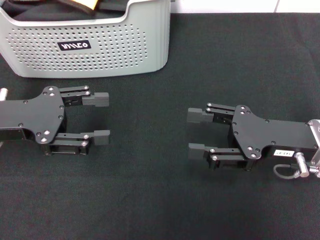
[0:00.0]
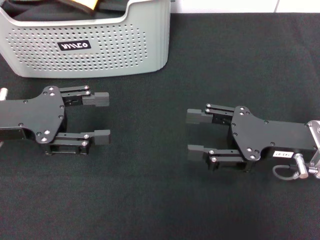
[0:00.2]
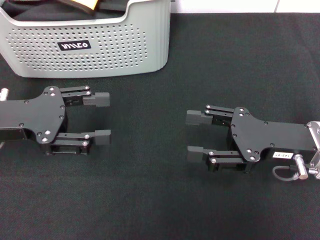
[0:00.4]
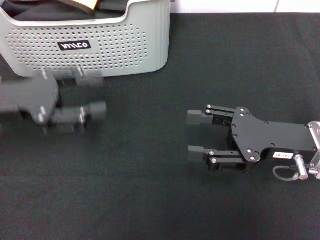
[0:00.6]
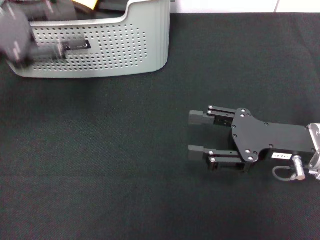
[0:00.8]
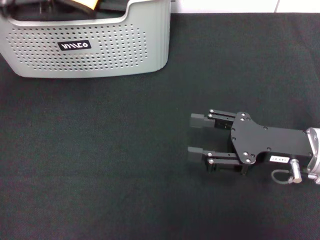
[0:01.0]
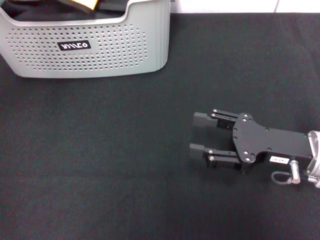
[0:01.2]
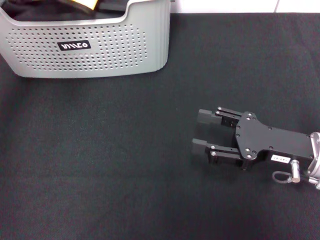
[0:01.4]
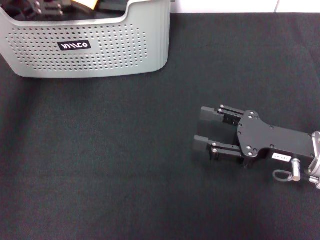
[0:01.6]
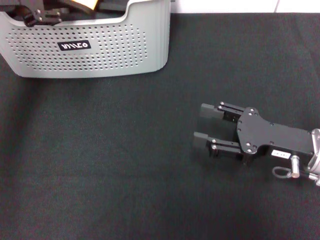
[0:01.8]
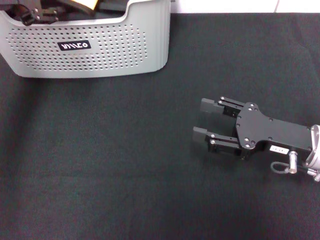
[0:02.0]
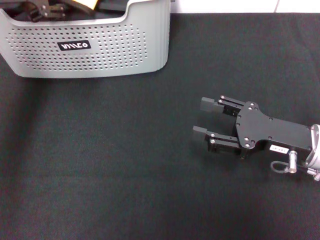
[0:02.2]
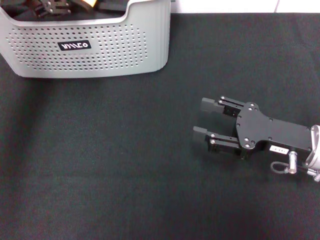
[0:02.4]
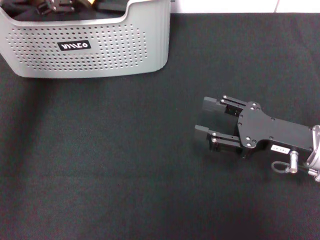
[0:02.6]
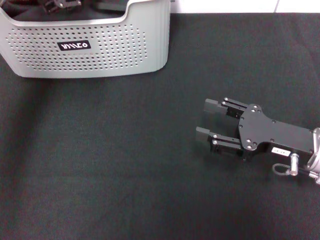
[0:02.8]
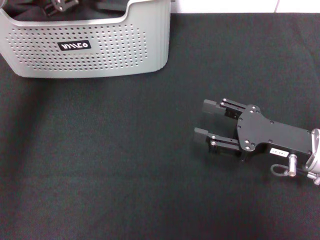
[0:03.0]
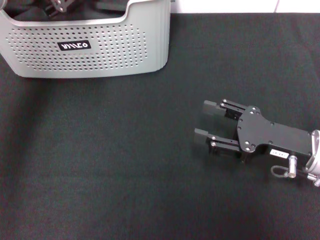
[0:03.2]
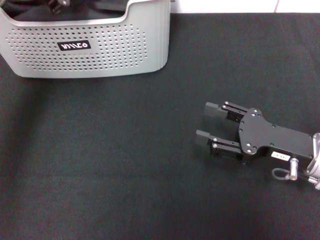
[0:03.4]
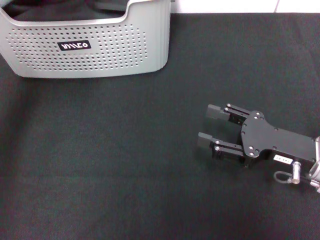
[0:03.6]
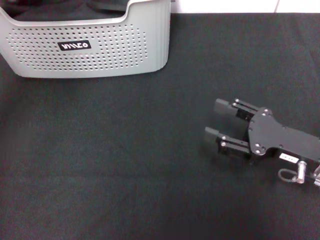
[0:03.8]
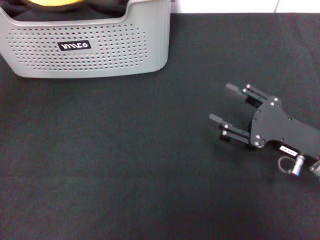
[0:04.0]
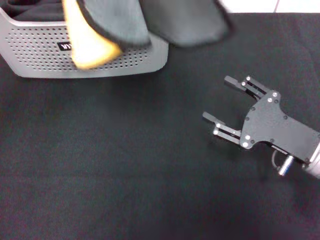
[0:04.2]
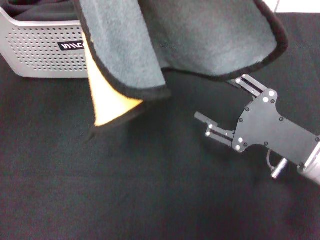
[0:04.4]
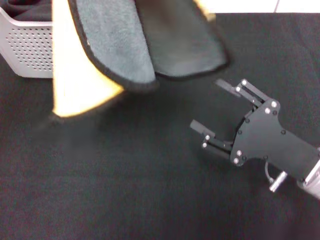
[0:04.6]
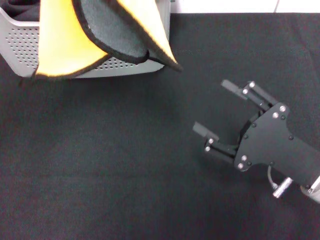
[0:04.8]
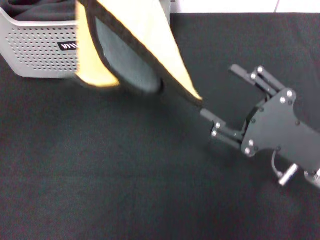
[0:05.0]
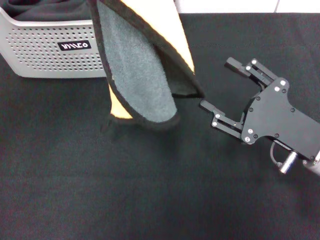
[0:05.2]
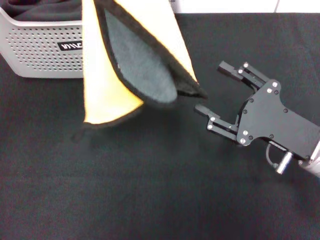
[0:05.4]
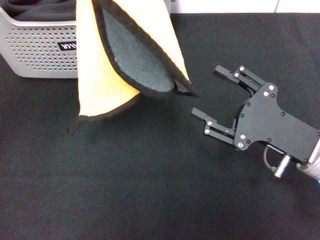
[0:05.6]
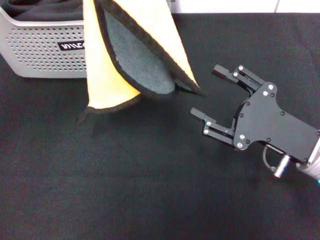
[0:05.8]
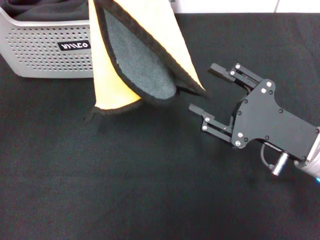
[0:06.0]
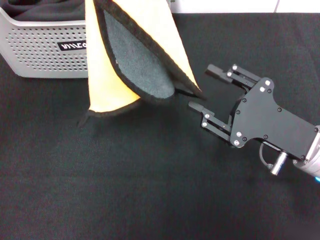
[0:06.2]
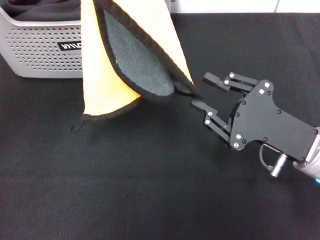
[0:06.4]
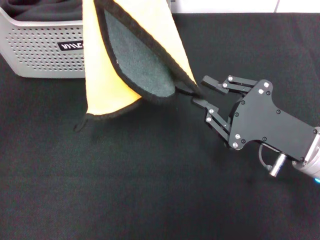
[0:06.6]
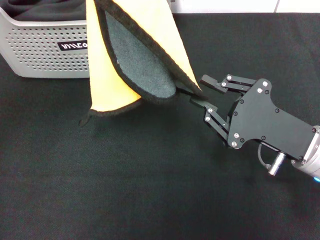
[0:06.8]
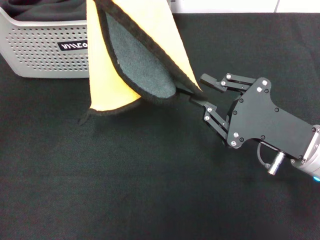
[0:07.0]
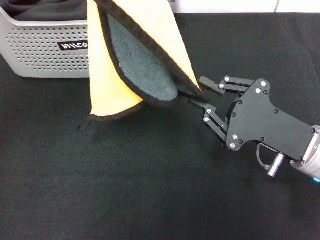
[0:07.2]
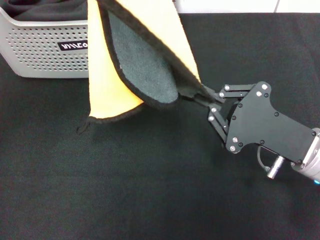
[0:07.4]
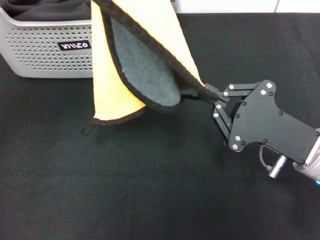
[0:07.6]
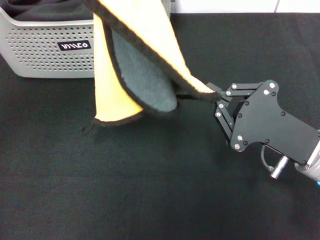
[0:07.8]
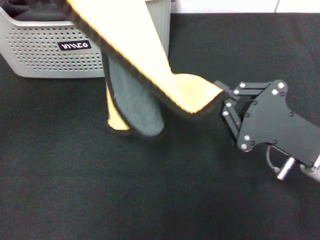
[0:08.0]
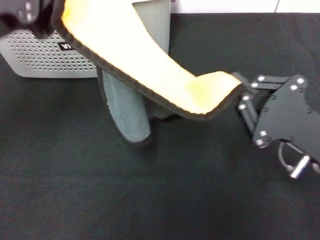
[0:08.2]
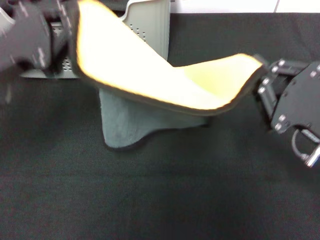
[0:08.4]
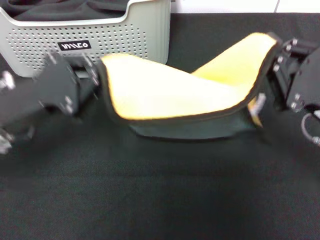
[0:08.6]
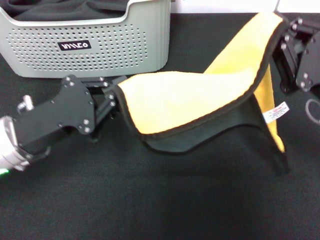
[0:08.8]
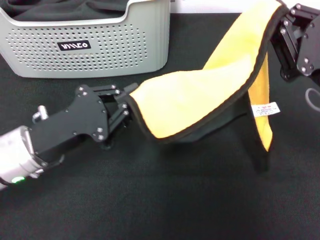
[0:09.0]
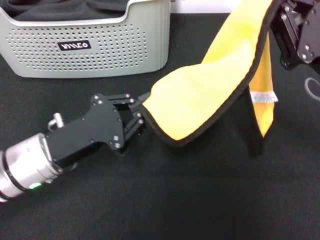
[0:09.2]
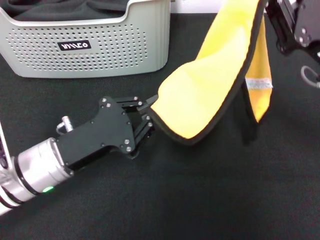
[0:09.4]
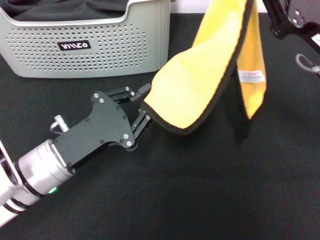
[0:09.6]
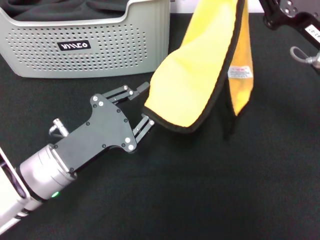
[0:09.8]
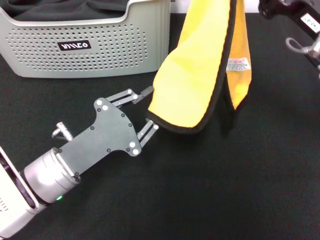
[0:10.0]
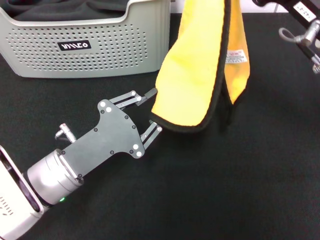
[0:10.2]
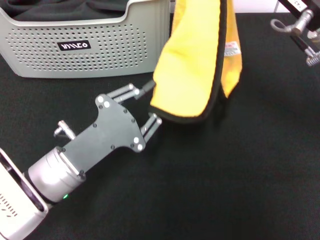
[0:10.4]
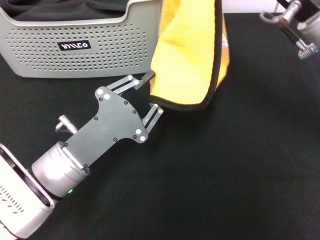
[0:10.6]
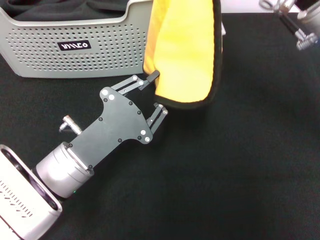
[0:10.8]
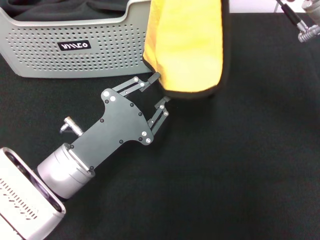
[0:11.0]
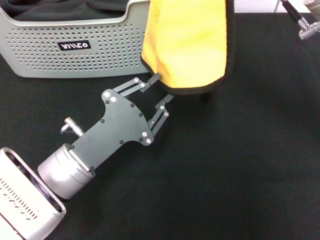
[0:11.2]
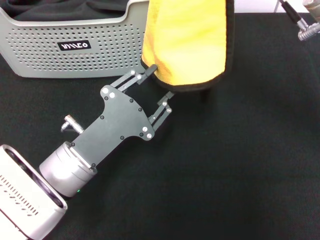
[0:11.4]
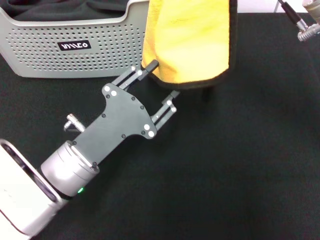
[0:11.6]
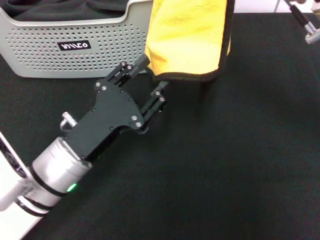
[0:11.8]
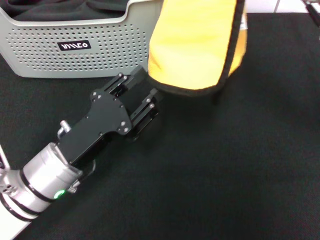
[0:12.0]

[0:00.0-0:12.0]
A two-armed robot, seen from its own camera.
Task of the whole recording: pick up the towel from the storage box and lay it flat on the black tablecloth.
Step, 0:00.0 to 0:03.2: Pick up a towel with the left gripper.
Step, 0:03.4 to 0:07.6: Spread the towel flat with the left gripper.
0:00.0 to 0:01.6: The left gripper moves upward and forward, roughly 15 cm.
0:01.6 to 0:03.0: The grippers move only a little.
0:03.0 to 0:04.4: The left gripper moves backward and upward, roughly 15 cm, and closes up.
0:06.0 to 0:07.6: The right gripper closes up.
0:07.6 to 0:09.0: The right gripper heads upward, covering some 5 cm. Meanwhile the left gripper heads downward, covering some 20 cm.
0:09.0 to 0:10.4: The right gripper heads upward and to the left, covering about 10 cm. Meanwhile the left gripper shifts by roughly 5 cm.

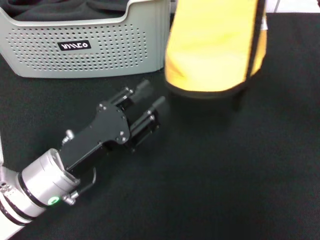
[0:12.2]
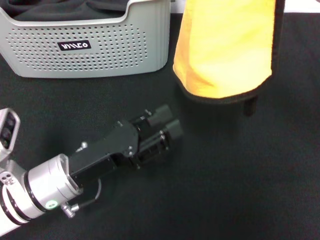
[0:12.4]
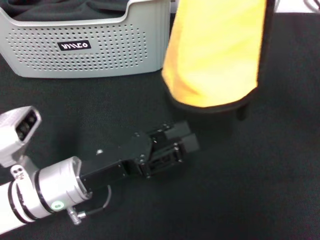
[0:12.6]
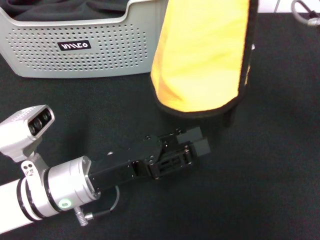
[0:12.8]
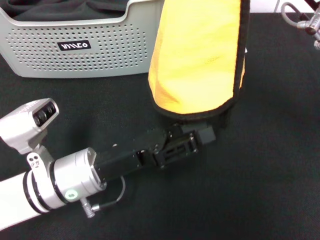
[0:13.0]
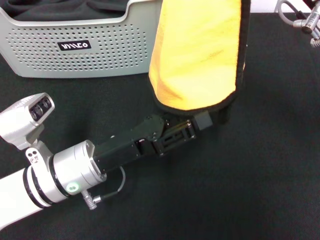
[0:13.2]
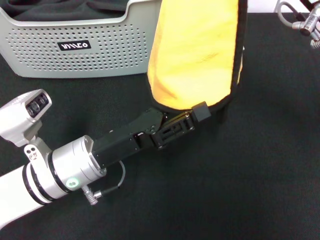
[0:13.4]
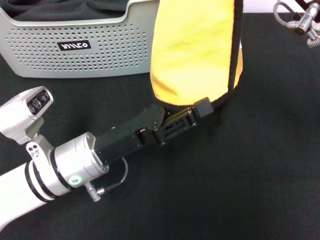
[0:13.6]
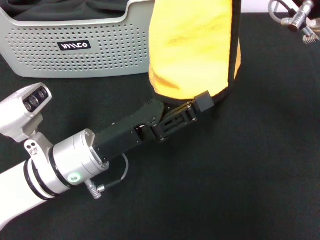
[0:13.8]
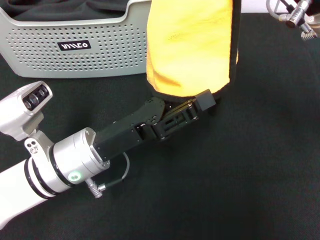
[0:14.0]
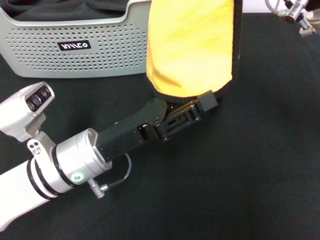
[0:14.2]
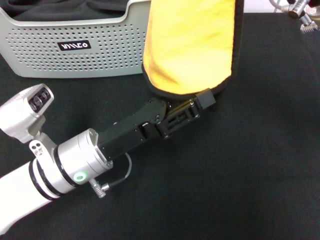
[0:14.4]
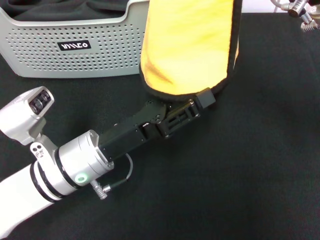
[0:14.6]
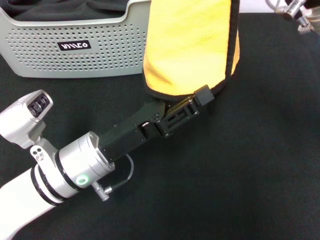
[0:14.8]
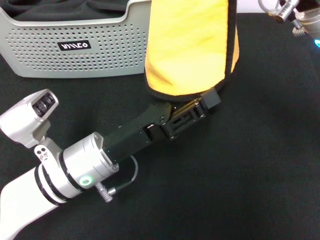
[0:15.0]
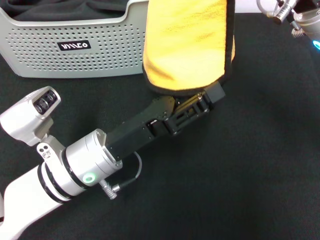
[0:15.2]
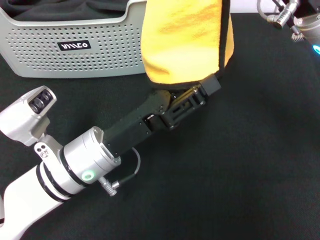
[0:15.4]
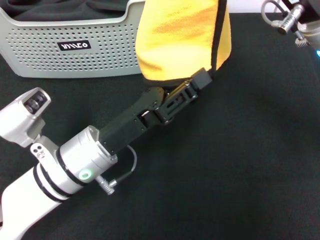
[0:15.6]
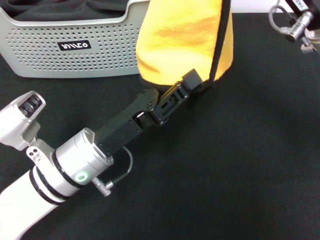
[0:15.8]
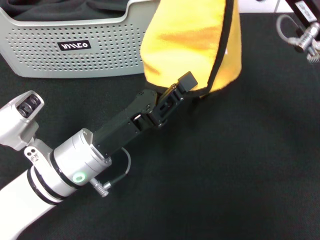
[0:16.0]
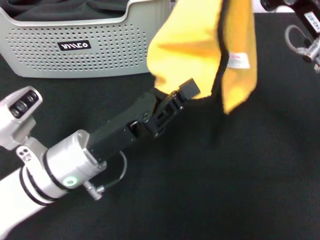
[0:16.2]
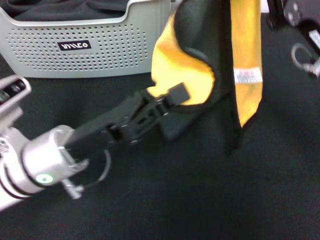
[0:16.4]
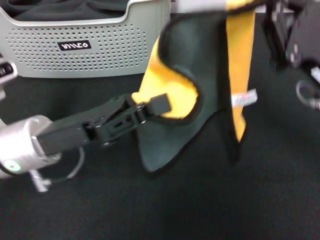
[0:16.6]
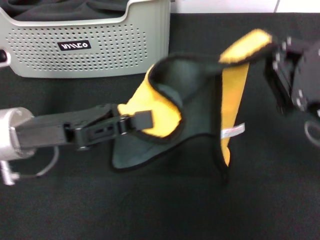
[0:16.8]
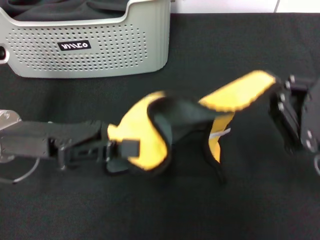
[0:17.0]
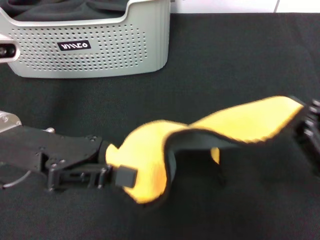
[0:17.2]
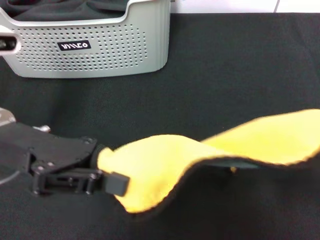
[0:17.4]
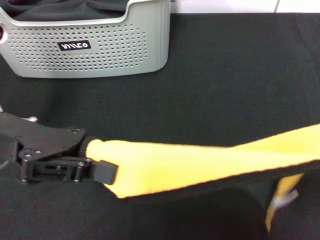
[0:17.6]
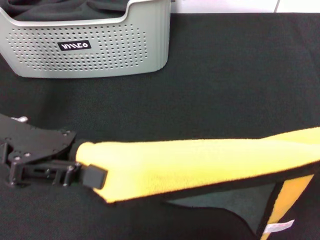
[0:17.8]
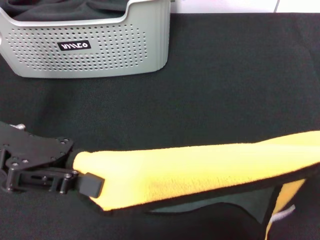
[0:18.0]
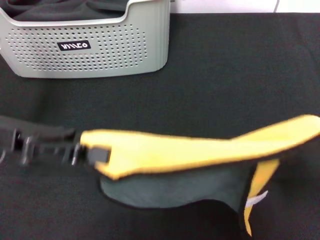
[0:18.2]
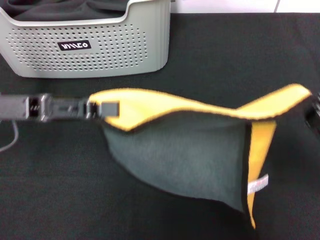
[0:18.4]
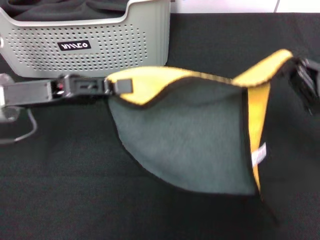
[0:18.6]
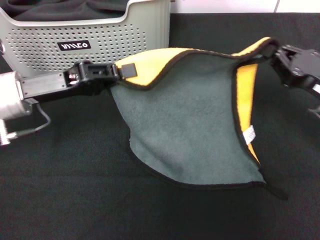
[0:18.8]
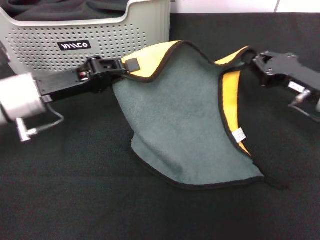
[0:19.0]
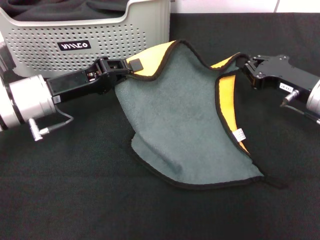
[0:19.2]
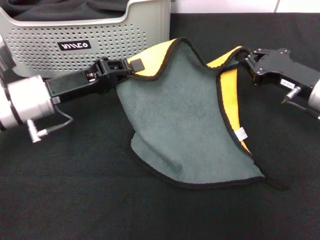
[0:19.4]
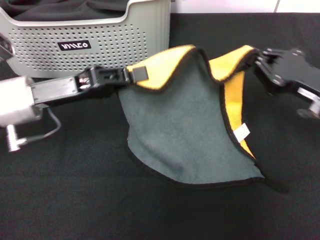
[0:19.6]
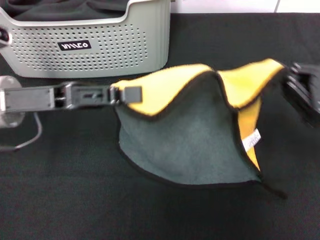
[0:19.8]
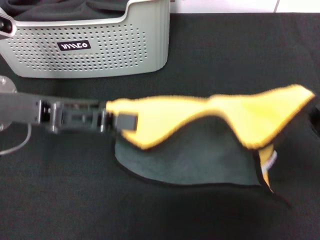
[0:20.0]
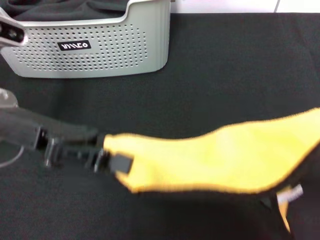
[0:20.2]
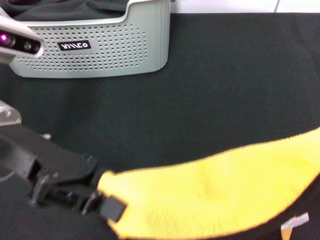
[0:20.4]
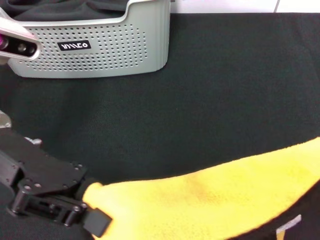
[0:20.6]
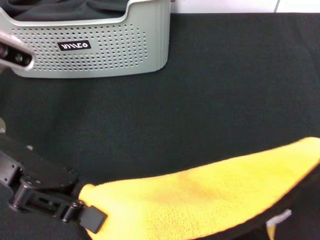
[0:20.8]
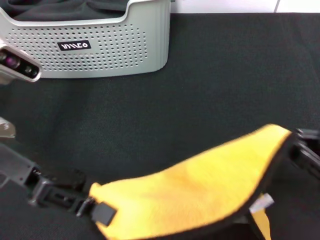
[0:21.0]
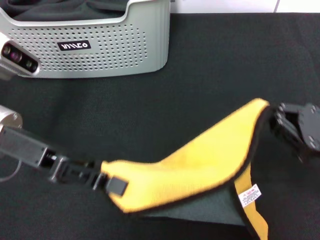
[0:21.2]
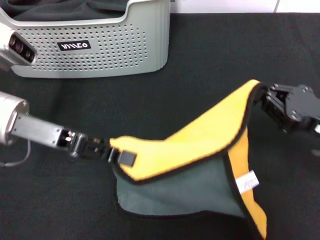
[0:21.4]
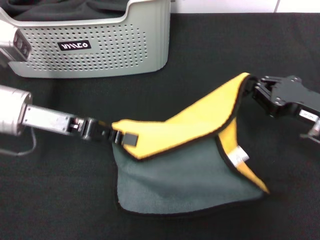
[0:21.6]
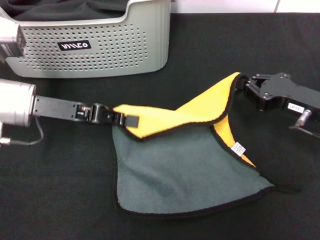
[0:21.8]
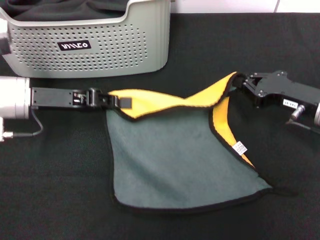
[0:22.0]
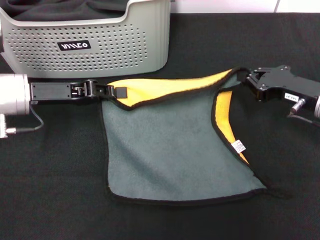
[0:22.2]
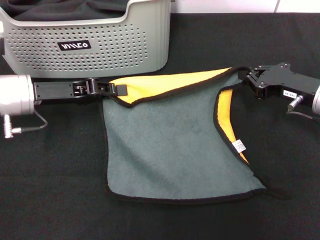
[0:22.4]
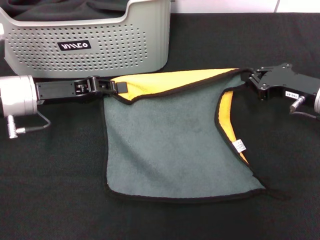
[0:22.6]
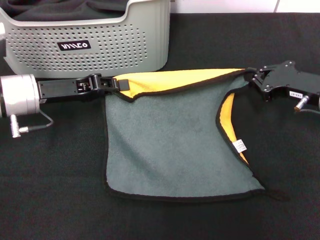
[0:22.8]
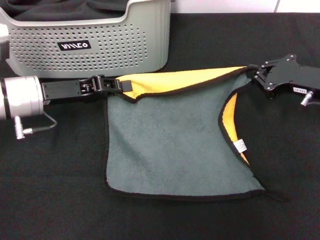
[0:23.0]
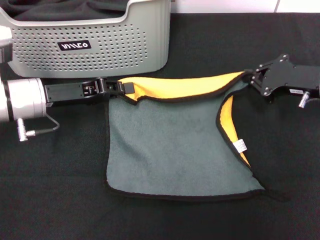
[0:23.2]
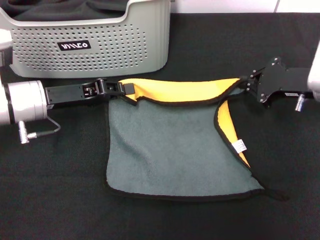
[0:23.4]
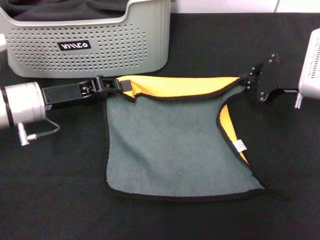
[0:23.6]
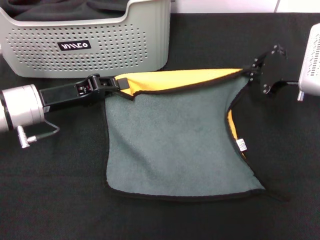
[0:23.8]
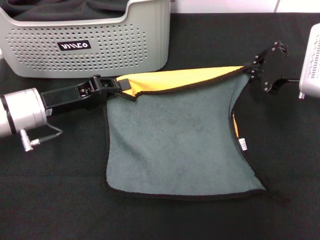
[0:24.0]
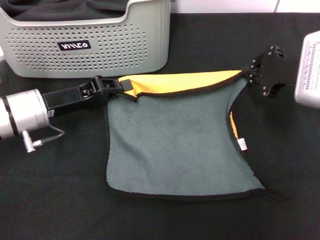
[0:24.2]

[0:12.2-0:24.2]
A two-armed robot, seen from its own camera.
Task of the whole recording: pick up the towel from the storage box and lay it flat on the black tablecloth.
0:13.8 to 0:15.2: The grippers move only a little.
0:15.2 to 0:16.6: The right gripper goes approximately 10 cm downward and to the right. Meanwhile the left gripper goes approximately 5 cm to the left, and closes.
0:16.6 to 0:18.2: The left gripper moves to the left and upward, approximately 10 cm. Meanwhile the right gripper heads backward and to the right, covering approximately 10 cm.
0:18.2 to 0:19.8: The right gripper is displaced forward by some 10 cm.
0:21.2 to 0:22.6: The right gripper moves forward, roughly 15 cm. Meanwhile the left gripper goes roughly 5 cm forward and downward.
0:22.6 to 0:24.2: The right gripper shifts by roughly 5 cm.
